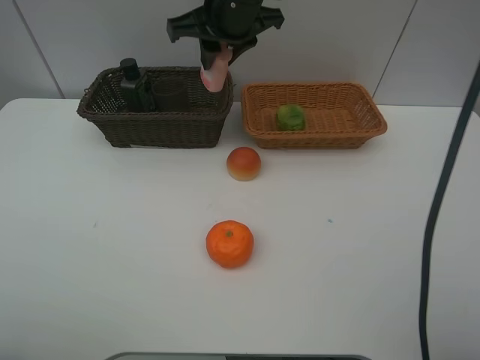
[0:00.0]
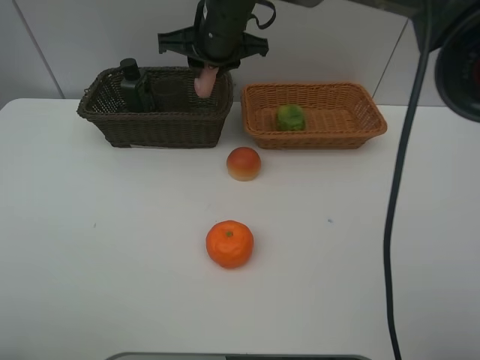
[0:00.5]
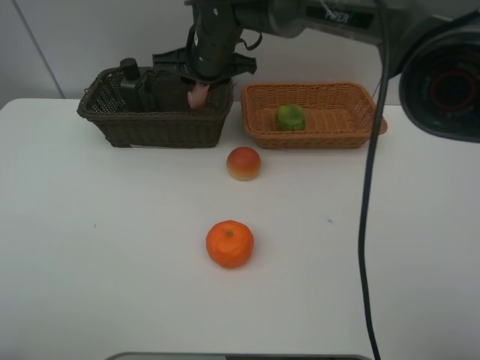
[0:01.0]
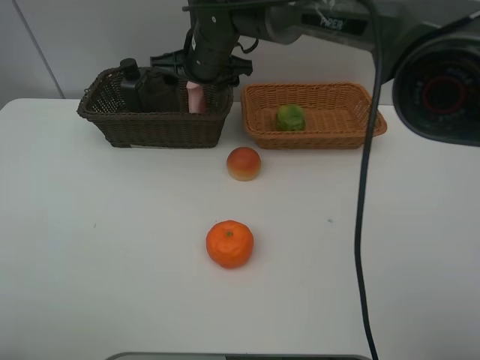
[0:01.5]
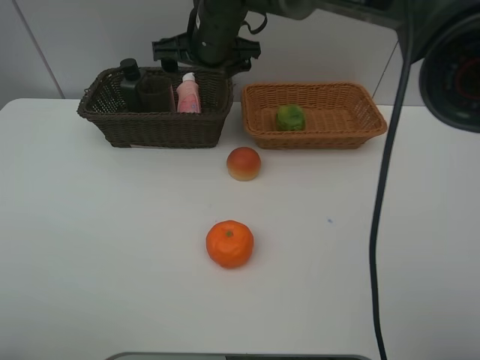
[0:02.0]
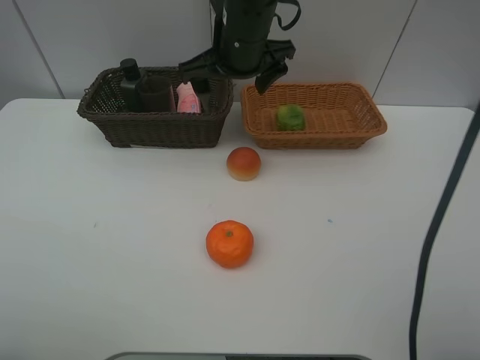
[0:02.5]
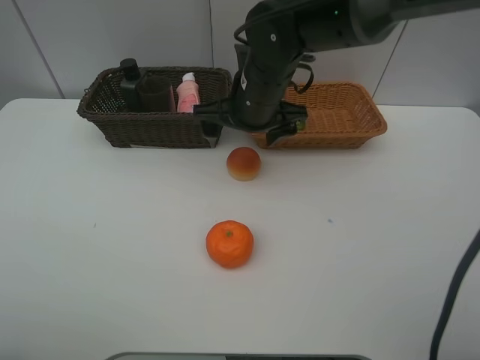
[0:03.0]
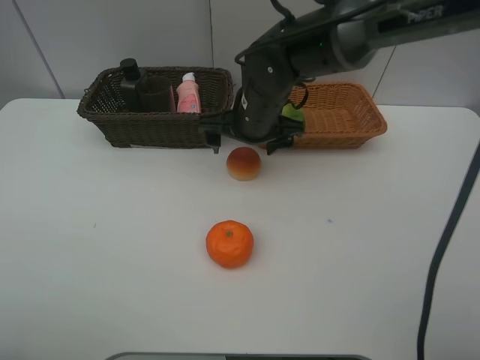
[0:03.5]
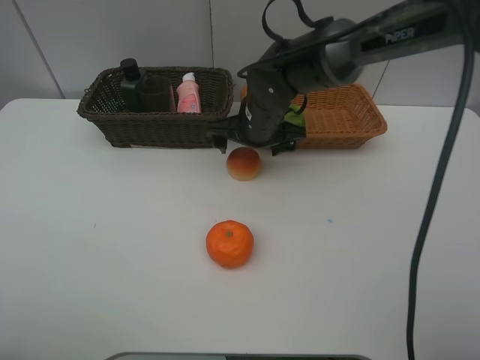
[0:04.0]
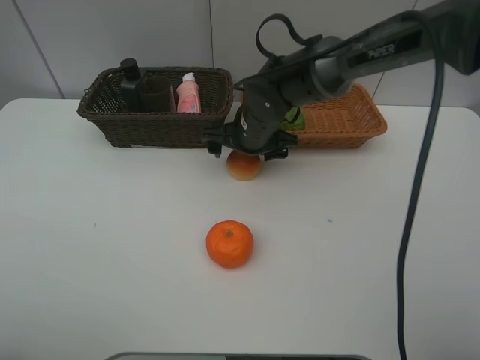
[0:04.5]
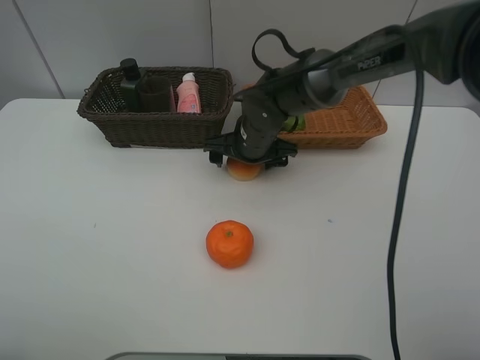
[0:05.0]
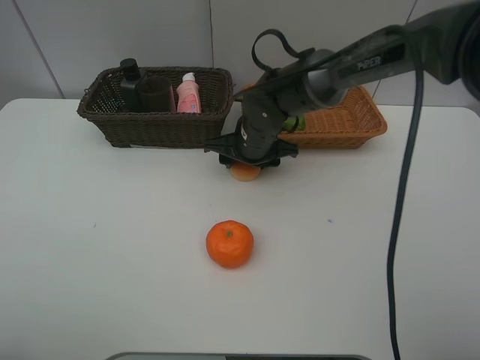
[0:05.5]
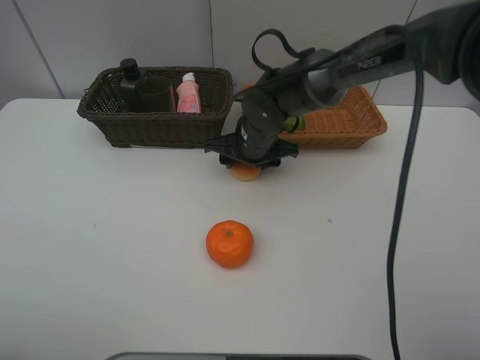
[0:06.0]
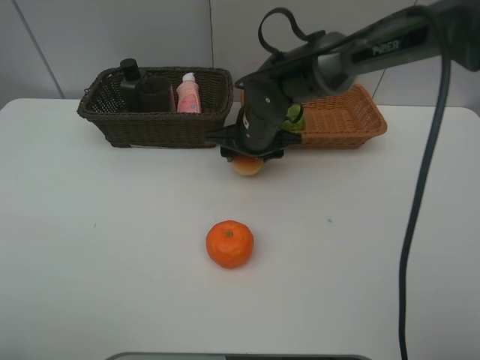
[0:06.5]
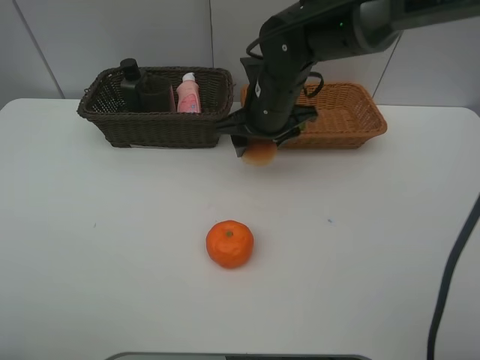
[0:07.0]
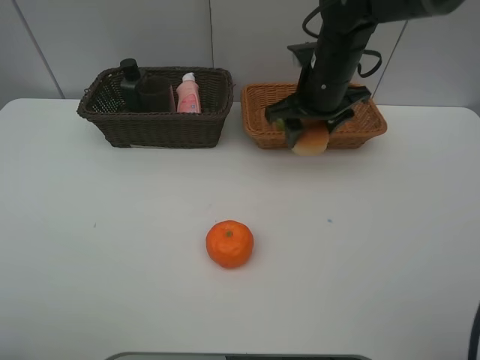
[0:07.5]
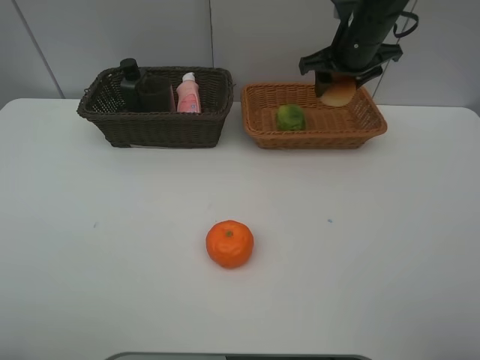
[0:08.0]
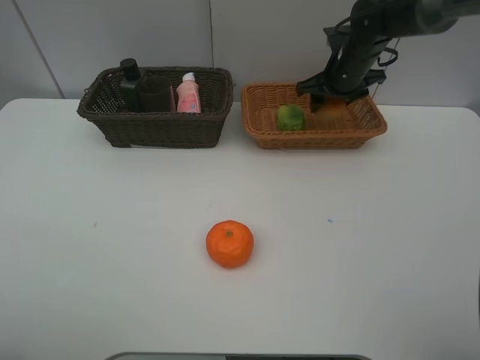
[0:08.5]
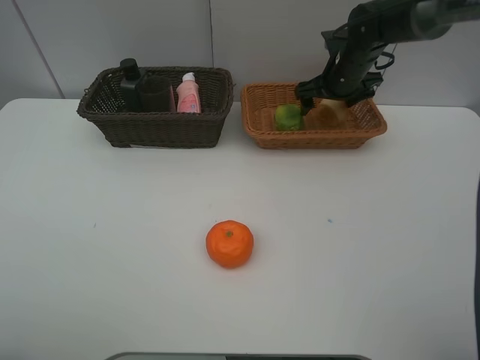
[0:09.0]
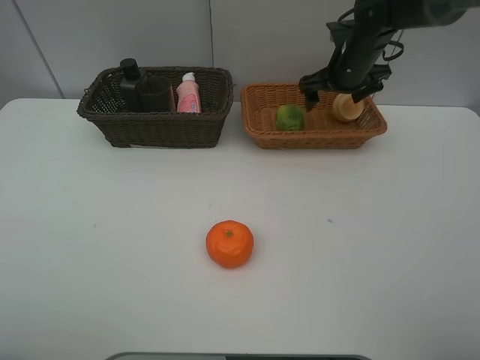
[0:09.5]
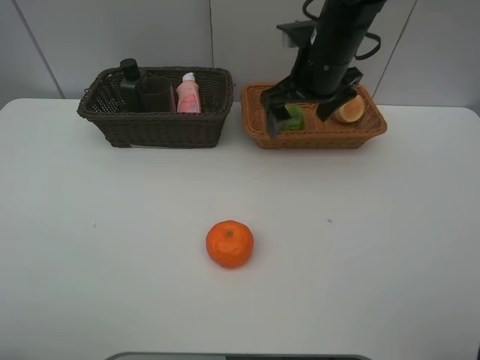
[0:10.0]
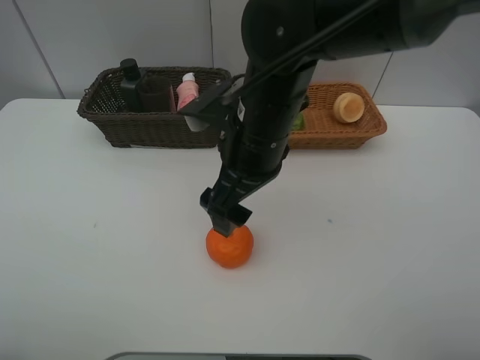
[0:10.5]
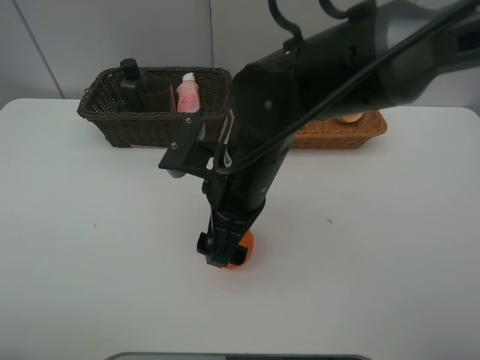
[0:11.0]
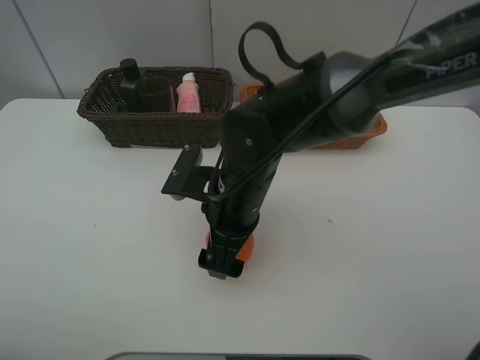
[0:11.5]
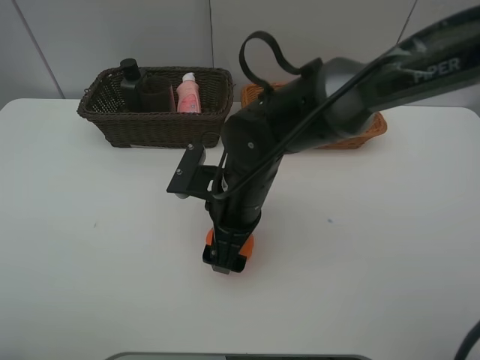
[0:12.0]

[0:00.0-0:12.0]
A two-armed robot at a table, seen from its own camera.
Task of the whole recording: place multiple objects separately in different baskets.
0:00.0 to 0:02.0: The right gripper heads downward, covering roughly 5 cm, and opens its fingers.
0:02.0 to 0:04.0: The right gripper is displaced downward and to the right by approximately 10 cm.
0:04.0 to 0:06.0: The right gripper closes up.
0:06.0 to 0:08.0: The right gripper shifts about 20 cm to the right, upward and forward.
0:08.0 to 0:10.0: The right gripper shifts some 10 cm backward and to the left, and opens its fingers.
0:10.0 to 0:12.0: The right gripper shifts approximately 20 cm backward, downward and to the left.

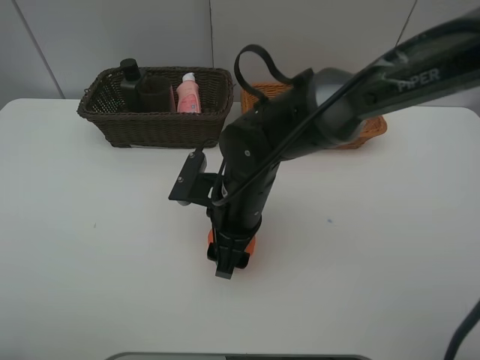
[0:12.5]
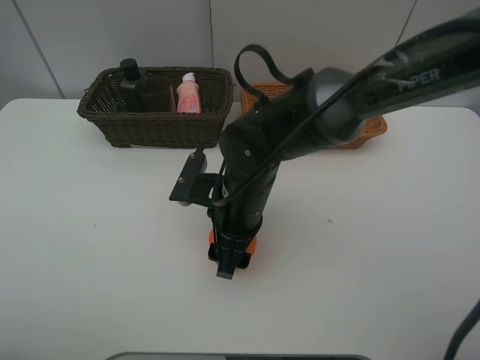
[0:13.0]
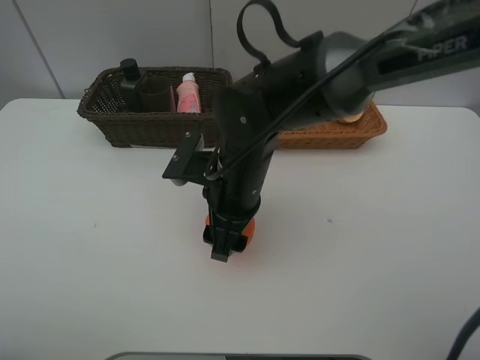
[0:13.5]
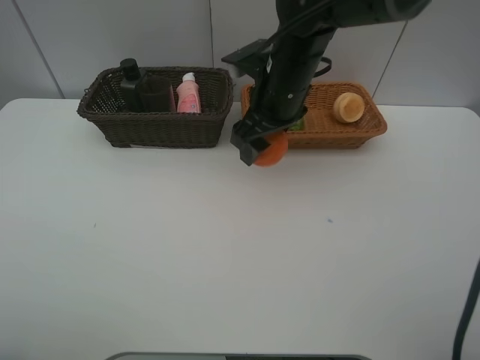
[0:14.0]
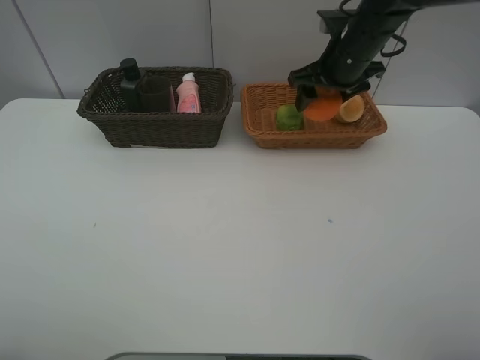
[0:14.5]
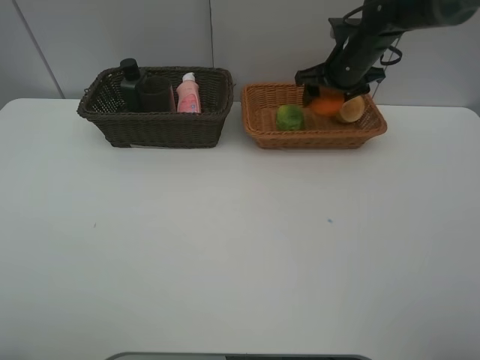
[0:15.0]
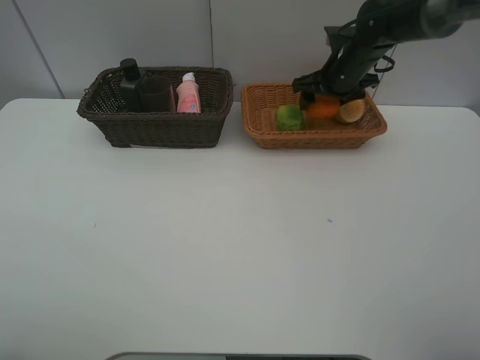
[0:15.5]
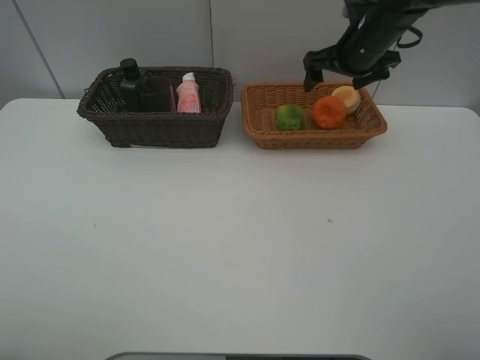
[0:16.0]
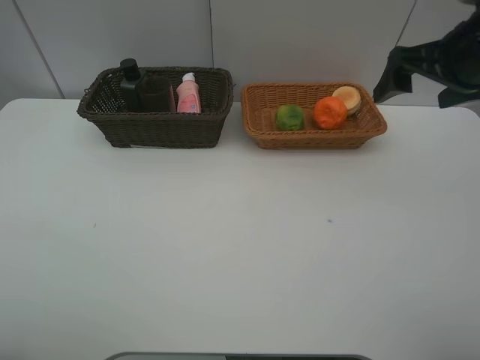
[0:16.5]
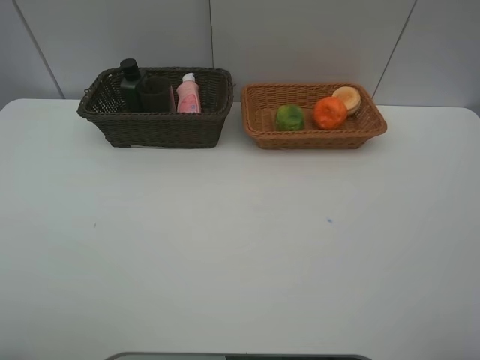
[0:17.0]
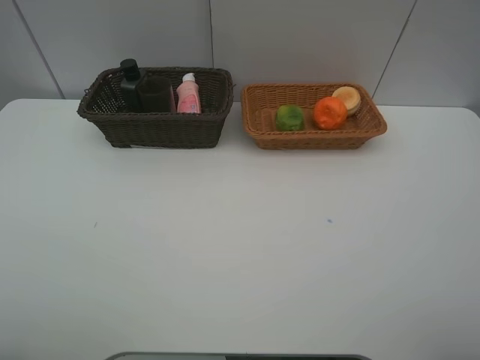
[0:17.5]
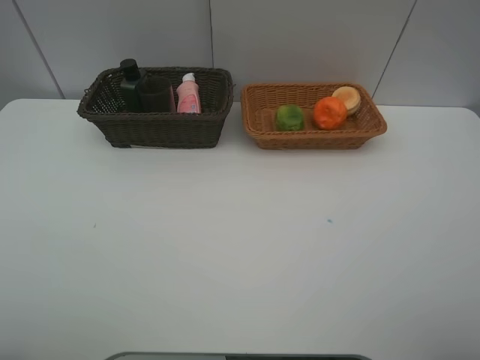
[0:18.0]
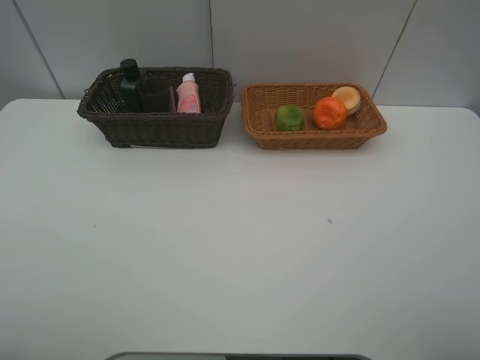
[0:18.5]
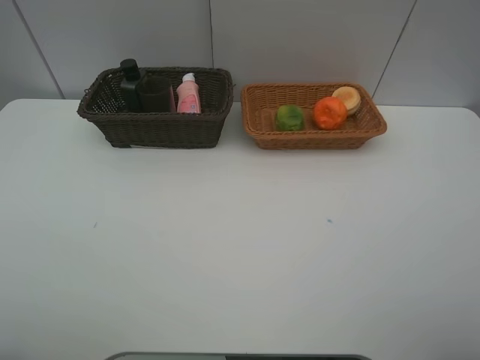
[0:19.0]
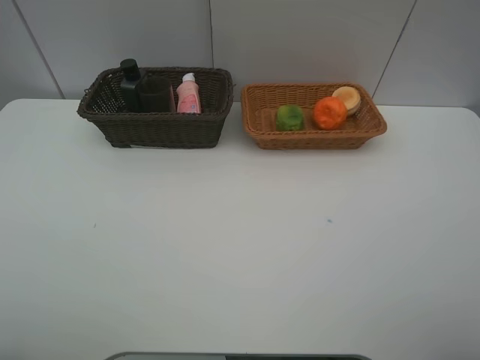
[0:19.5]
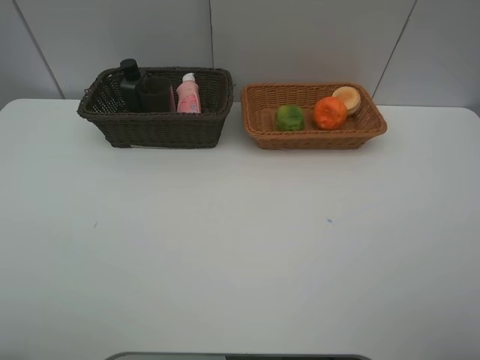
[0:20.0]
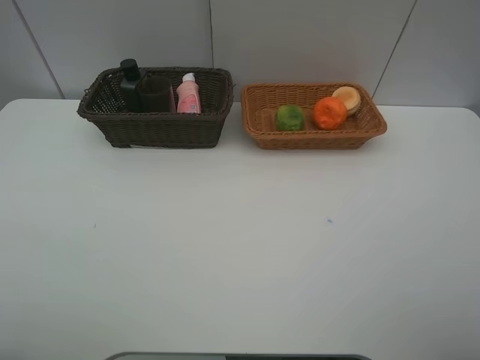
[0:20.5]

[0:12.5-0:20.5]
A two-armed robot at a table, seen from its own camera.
Task of the whole recording: place multiple objects separately in different baskets.
0:12.5 to 0:14.5: The right gripper moves forward, to the right and upward, some 25 cm.
0:14.5 to 0:16.5: The right gripper moves backward, to the right and upward, approximately 20 cm, and opens up.
0:16.5 to 0:18.5: The right gripper travels backward by approximately 30 cm.

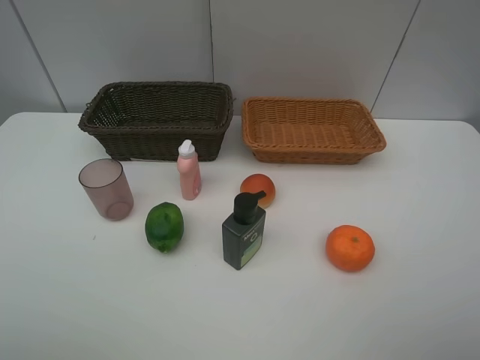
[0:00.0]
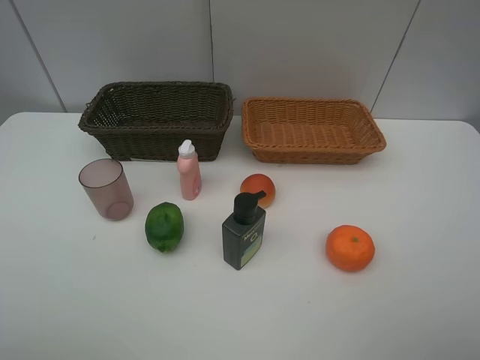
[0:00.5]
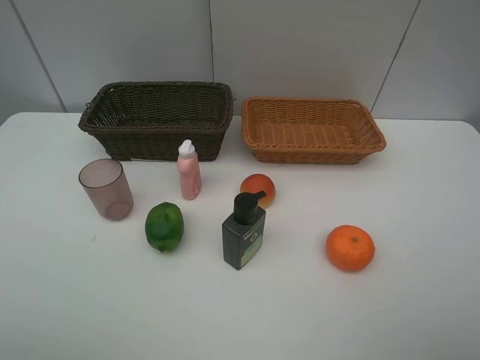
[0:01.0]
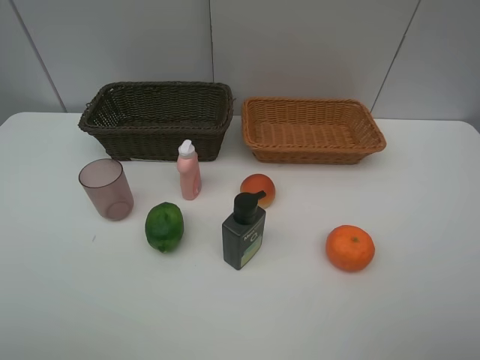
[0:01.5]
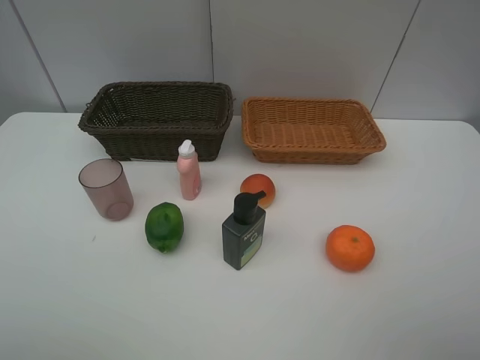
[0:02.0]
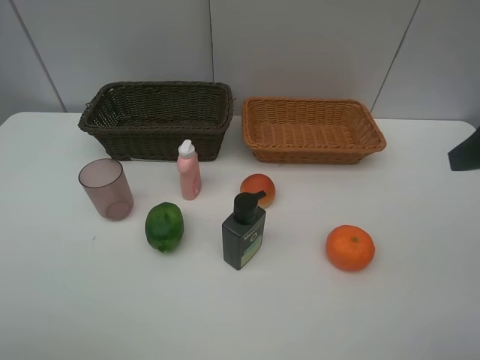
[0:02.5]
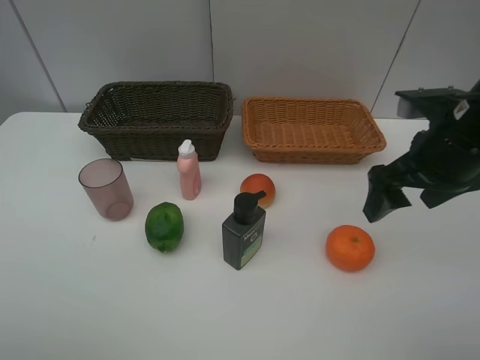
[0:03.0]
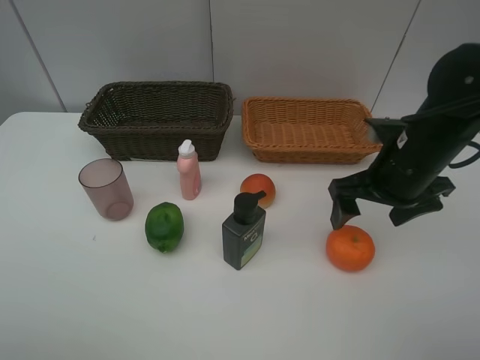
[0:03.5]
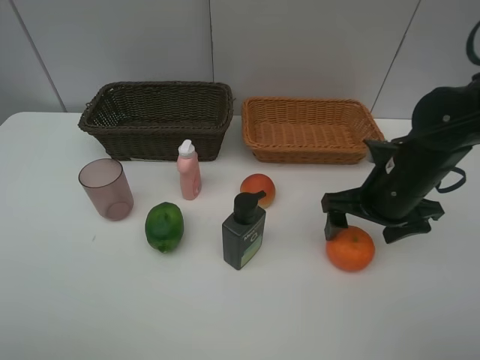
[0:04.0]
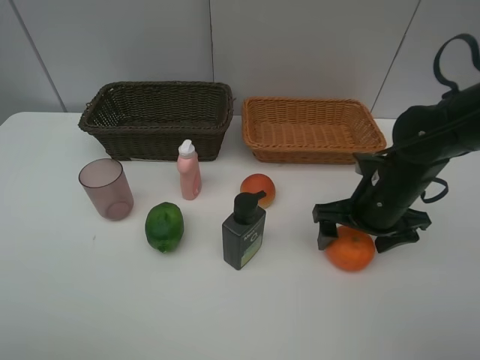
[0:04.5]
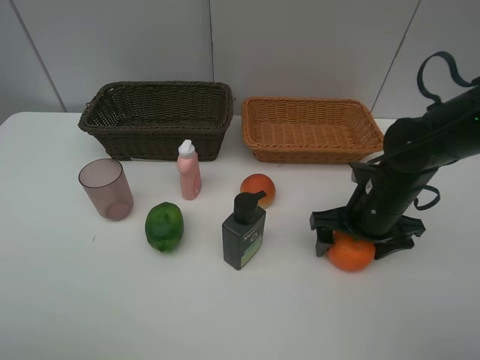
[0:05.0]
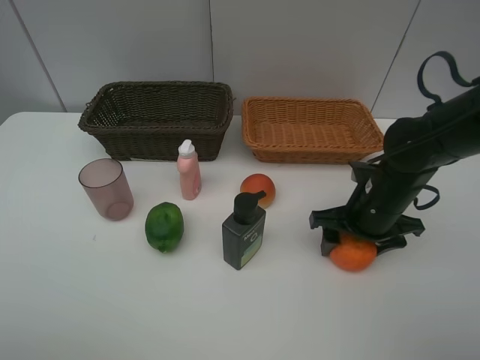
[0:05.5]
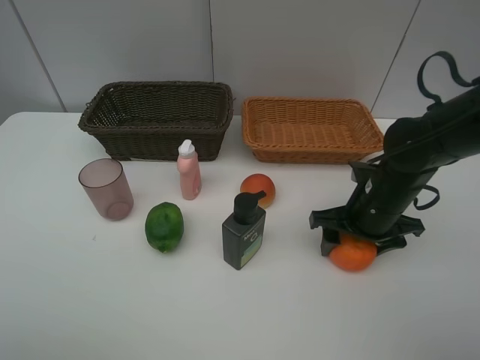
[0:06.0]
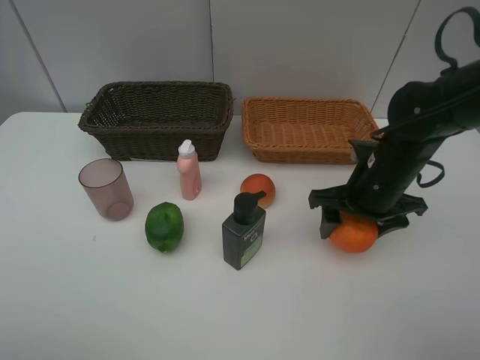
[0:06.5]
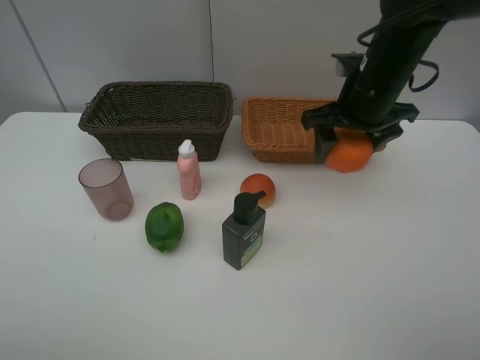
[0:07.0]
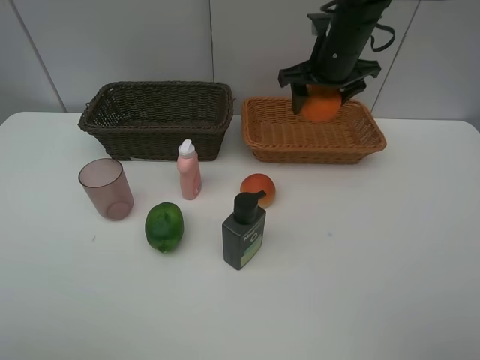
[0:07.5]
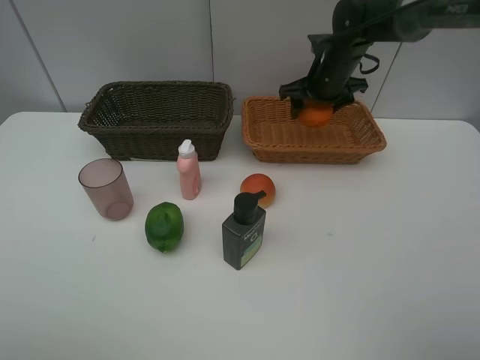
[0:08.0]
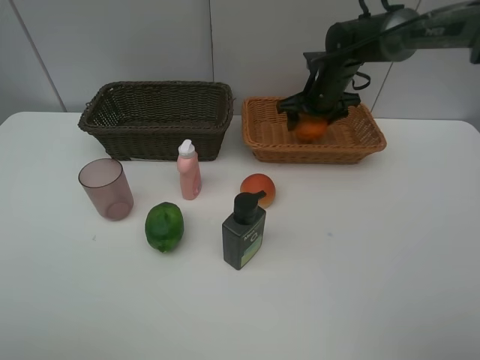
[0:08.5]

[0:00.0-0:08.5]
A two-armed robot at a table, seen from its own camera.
Task of the whole recording: place multiple objects separately in different baskets.
0:02.0 to 0:04.0: The right gripper moves forward, downward and to the left, about 30 cm.
0:04.0 to 0:06.5: The right gripper closes up.
0:06.5 to 0:08.5: The right gripper travels forward by some 20 cm.
